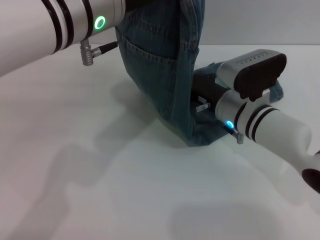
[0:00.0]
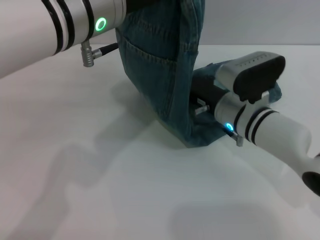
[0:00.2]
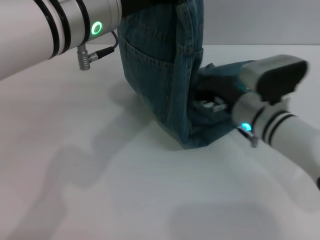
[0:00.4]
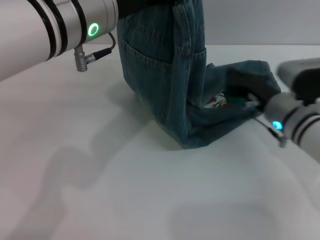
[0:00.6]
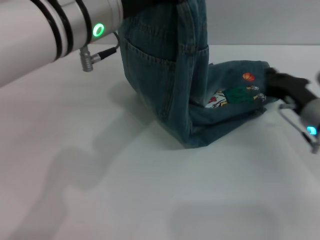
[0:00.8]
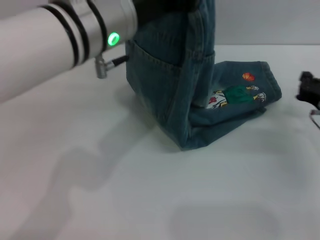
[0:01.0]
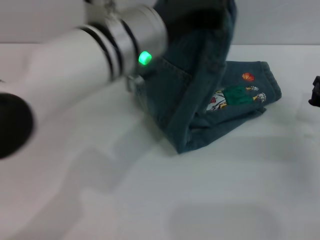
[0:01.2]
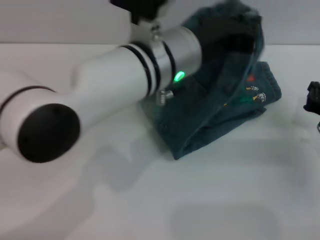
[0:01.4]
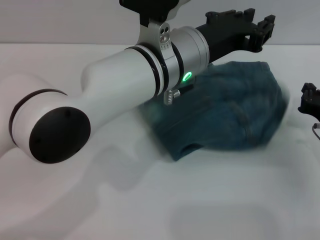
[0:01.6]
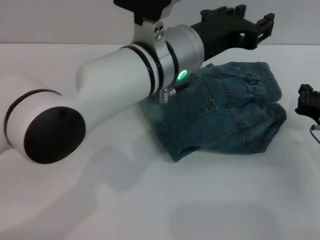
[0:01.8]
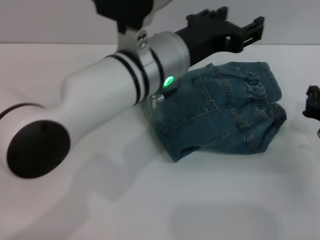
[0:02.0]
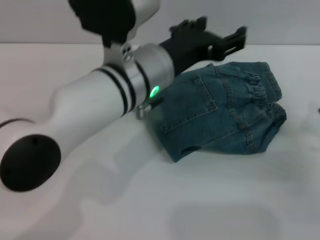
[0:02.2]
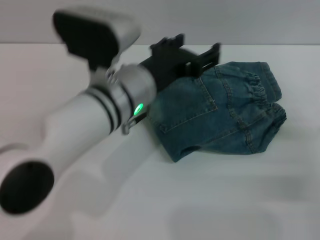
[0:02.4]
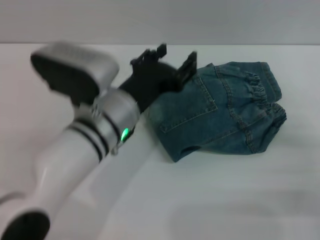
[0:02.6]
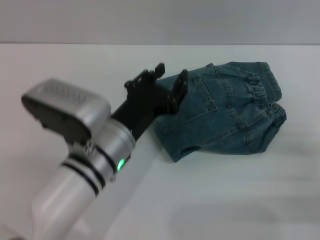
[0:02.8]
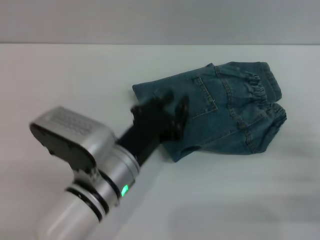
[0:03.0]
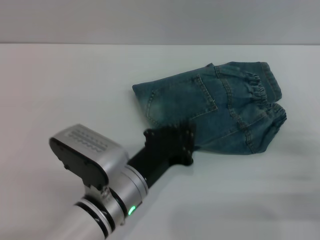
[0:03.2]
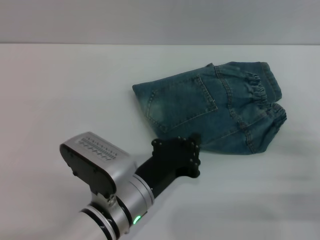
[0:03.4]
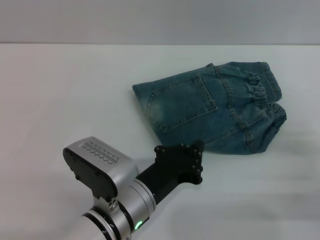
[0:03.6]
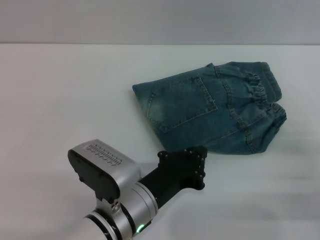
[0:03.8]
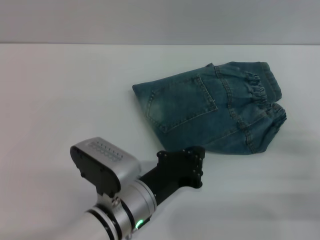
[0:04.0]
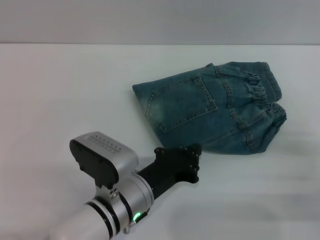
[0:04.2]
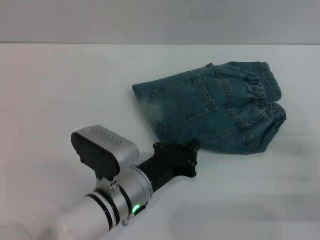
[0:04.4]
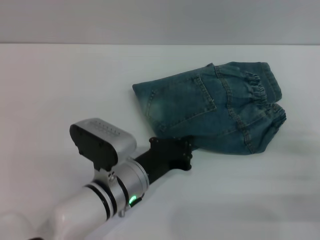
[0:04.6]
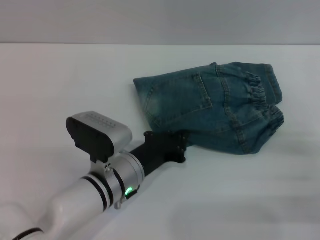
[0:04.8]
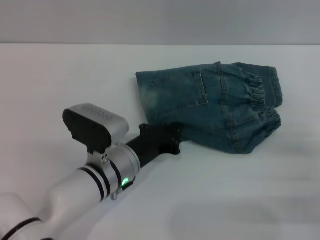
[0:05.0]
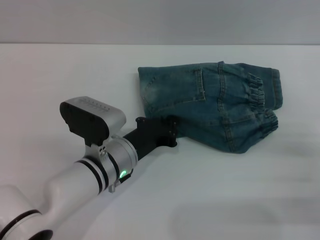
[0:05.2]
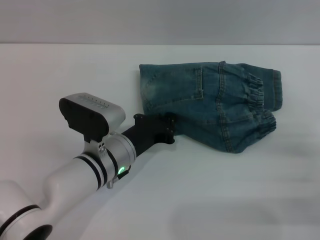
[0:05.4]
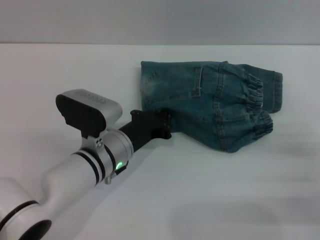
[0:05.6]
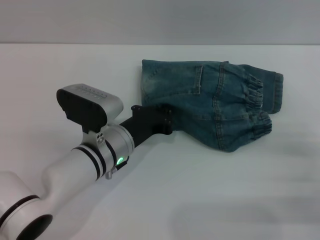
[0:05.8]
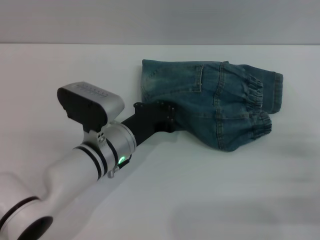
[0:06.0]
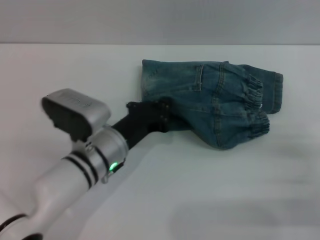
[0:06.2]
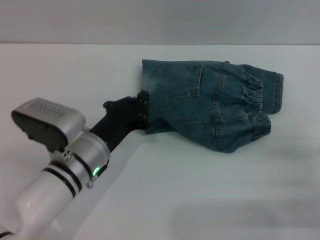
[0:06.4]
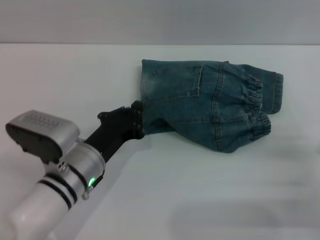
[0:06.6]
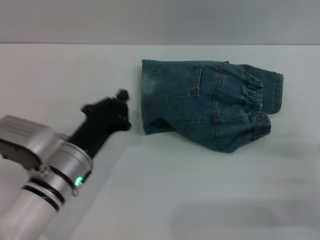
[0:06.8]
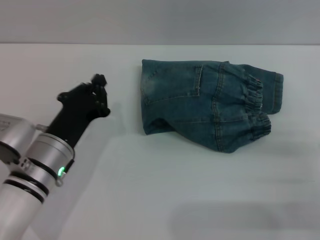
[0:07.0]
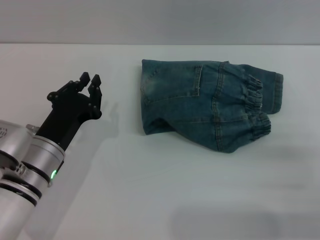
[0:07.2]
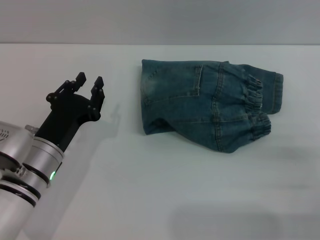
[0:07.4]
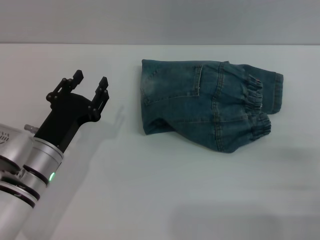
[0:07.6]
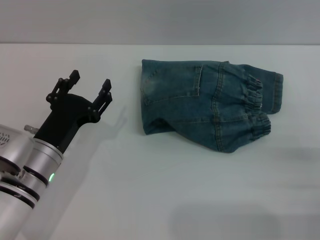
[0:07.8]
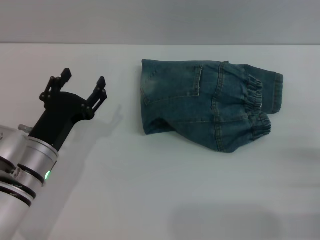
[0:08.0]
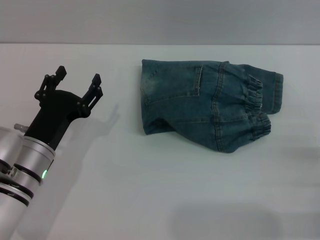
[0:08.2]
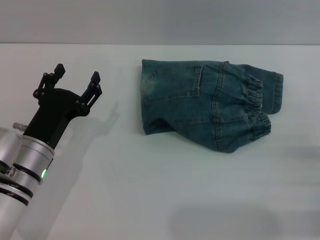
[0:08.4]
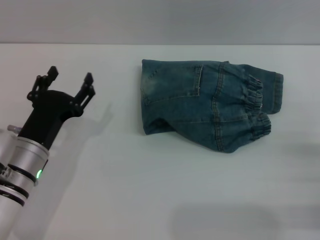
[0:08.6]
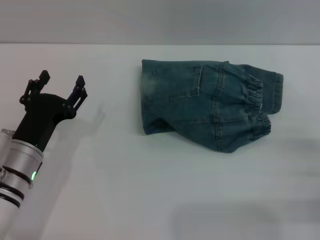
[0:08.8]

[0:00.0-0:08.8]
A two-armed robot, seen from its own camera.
Step, 2.0 to 6.6 s: Place the folded trousers onto the center area with the left grippers.
0.0 to 1.4 s: The right gripper travels to the right by about 15 cm, while the left gripper heads to the right and downward, covering about 10 cm.
1.4 to 3.0 s: The right gripper is displaced backward by roughly 10 cm; the left gripper is displaced downward, backward and to the left by approximately 15 cm, and opens, then closes again.
3.0 to 4.4 s: The left gripper travels downward by approximately 5 cm, and closes its fingers.
4.4 to 5.8 s: The left gripper heads forward, covering roughly 5 cm.
5.8 to 7.4 s: The left gripper goes some 10 cm to the left and backward.
7.4 to 8.8 s: The left gripper opens up.

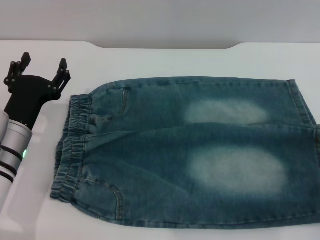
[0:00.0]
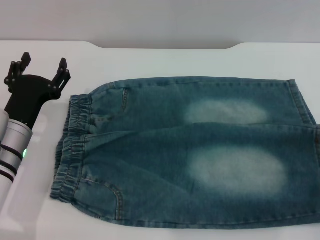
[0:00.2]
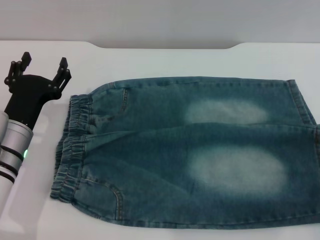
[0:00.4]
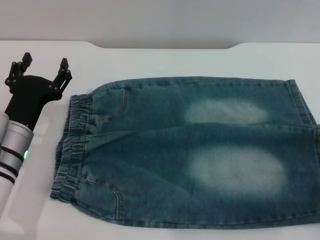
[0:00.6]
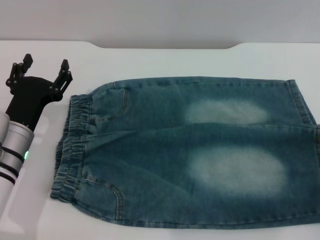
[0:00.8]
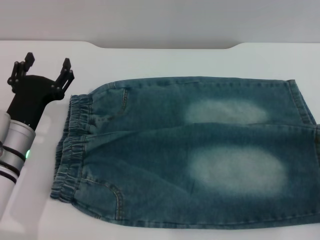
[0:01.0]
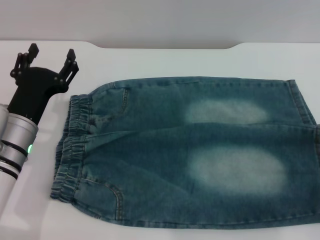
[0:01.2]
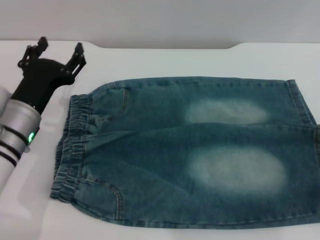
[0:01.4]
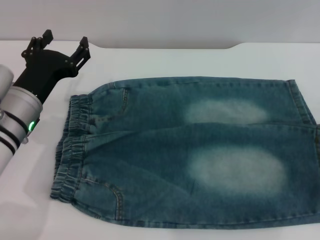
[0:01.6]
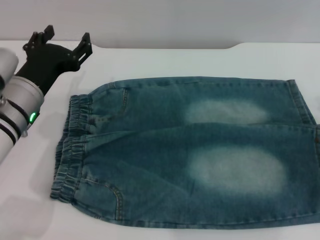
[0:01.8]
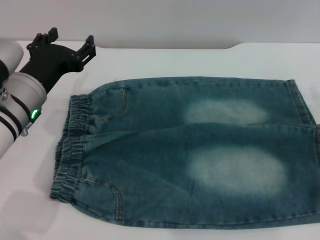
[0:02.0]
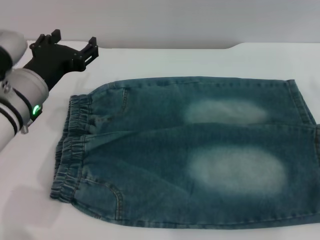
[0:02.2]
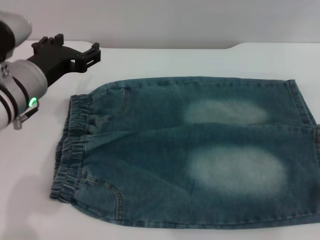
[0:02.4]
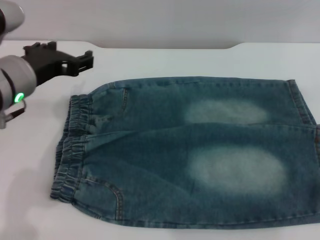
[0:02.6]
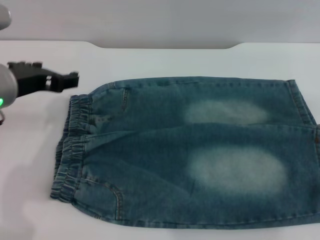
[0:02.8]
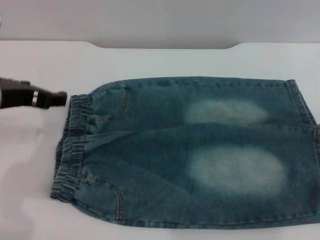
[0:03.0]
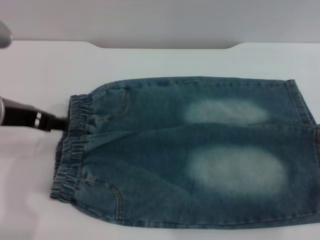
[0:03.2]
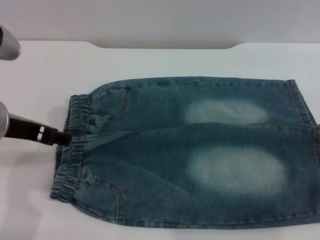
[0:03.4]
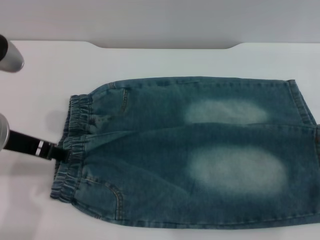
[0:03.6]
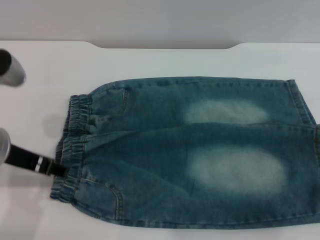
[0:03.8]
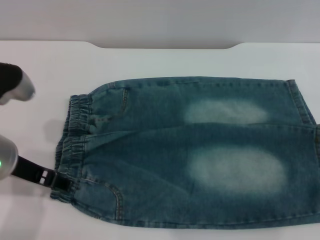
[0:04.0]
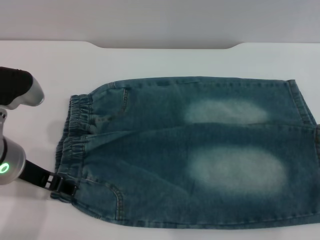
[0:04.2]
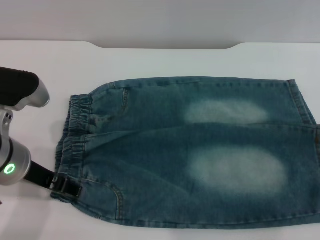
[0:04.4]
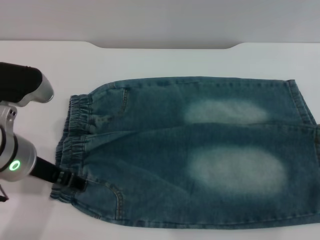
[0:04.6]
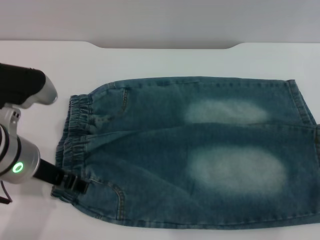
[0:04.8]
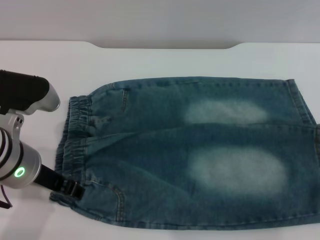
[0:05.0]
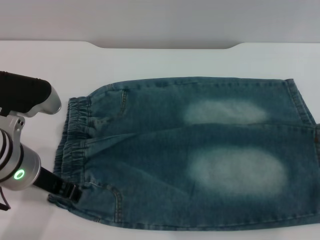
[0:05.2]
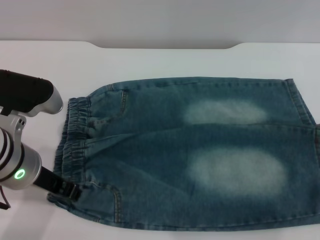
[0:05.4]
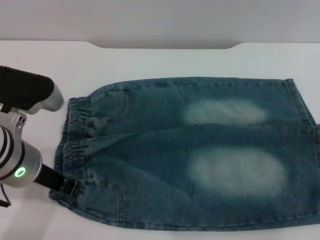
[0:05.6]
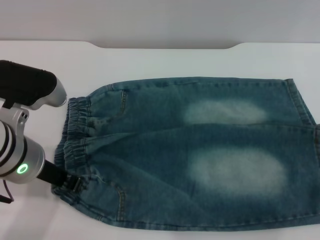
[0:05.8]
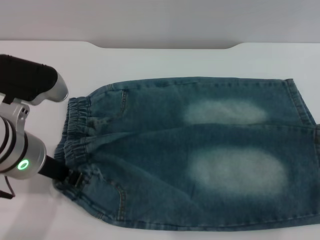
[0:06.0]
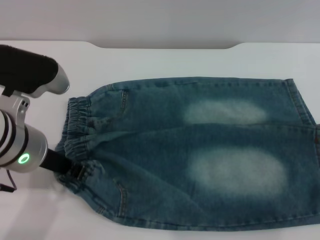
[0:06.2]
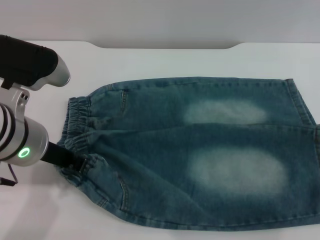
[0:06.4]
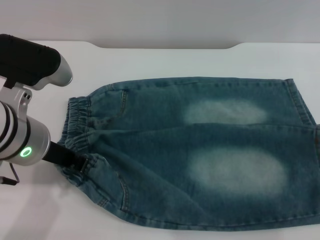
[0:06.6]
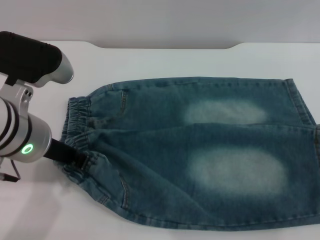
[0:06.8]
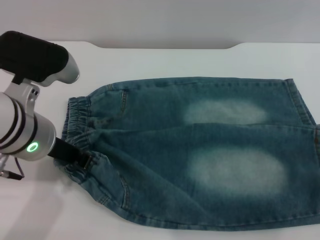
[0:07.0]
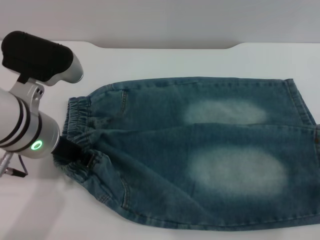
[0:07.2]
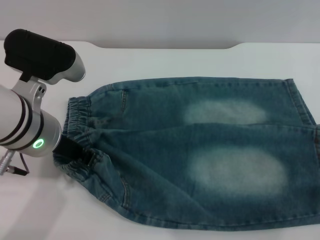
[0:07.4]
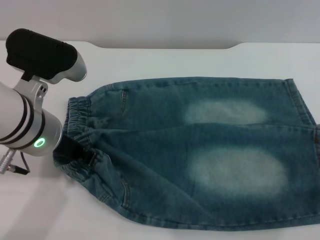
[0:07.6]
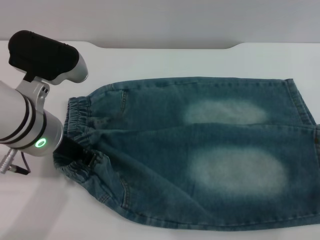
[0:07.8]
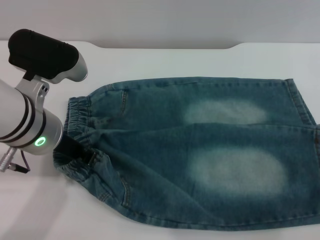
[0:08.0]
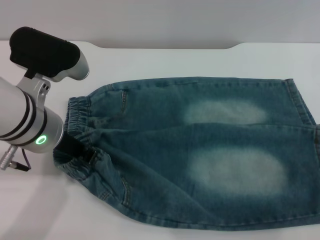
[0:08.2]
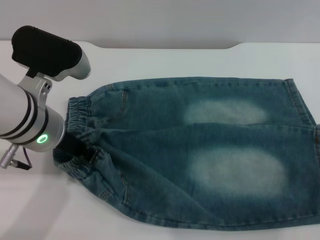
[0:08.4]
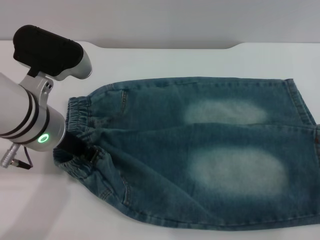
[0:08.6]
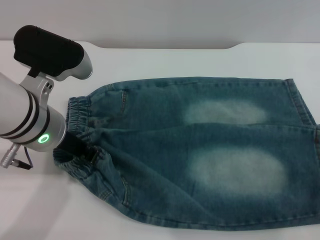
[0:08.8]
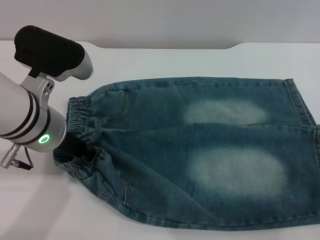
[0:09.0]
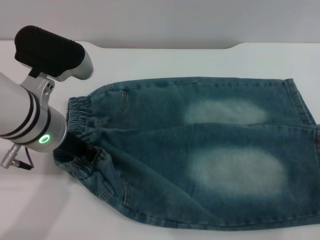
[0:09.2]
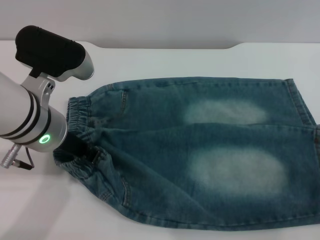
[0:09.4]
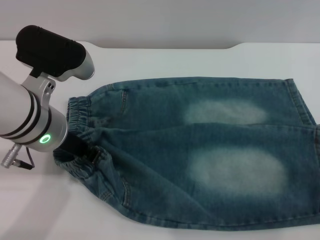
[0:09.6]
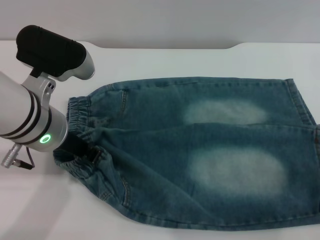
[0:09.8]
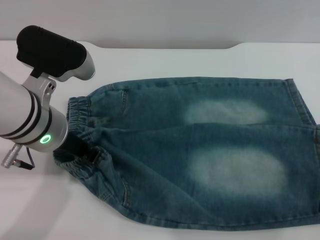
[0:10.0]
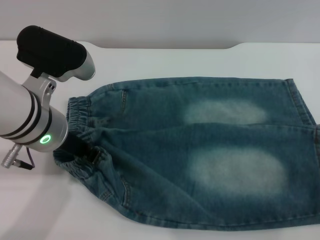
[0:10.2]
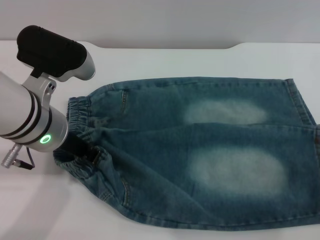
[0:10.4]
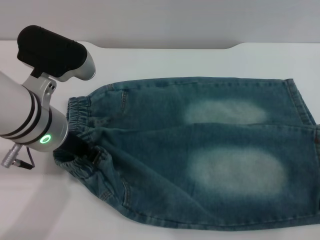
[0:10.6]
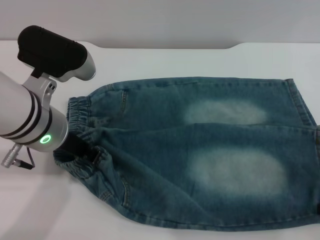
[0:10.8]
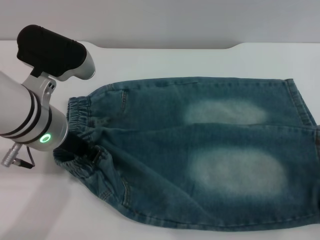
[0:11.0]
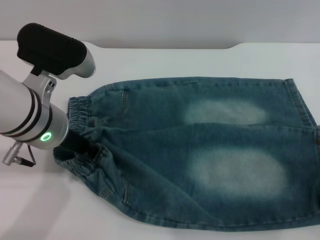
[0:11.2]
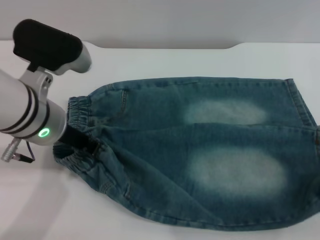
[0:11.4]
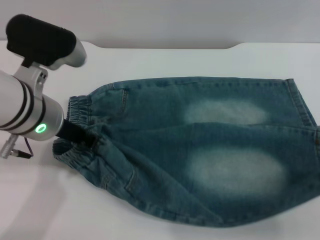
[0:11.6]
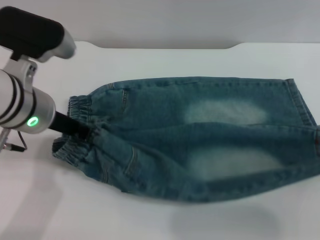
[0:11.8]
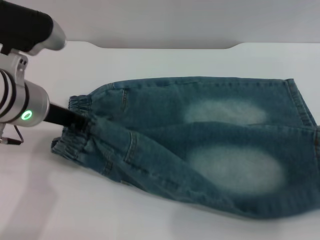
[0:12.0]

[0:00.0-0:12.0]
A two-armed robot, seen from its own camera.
0.0 to 1.6 s: The left gripper moves upward, roughly 5 cm.
1.6 to 3.0 s: The left gripper is displaced upward by approximately 10 cm.
3.0 to 4.4 s: The left gripper ends up roughly 5 cm from where it was.
4.4 to 6.0 s: The left gripper closes up.
6.0 to 7.6 s: The right gripper is displaced downward by approximately 5 cm.
7.6 to 9.0 s: The grippers stay close to where they were, moving slightly.
9.0 to 10.4 s: Neither gripper changes place.
10.4 to 12.0 s: The right gripper is displaced upward by roughly 5 cm, and closes.

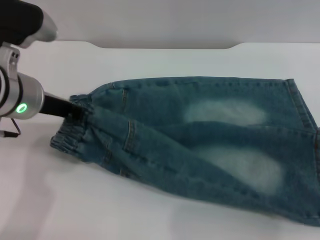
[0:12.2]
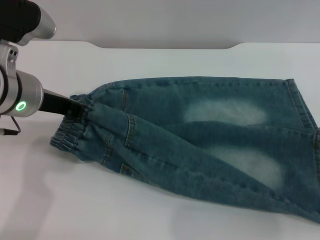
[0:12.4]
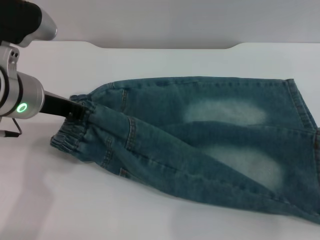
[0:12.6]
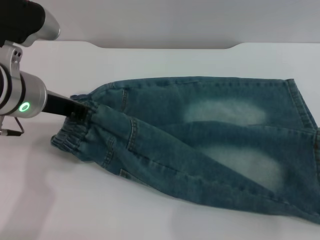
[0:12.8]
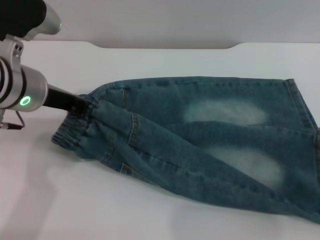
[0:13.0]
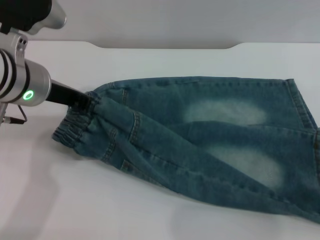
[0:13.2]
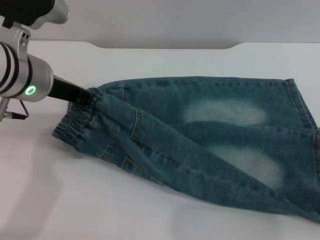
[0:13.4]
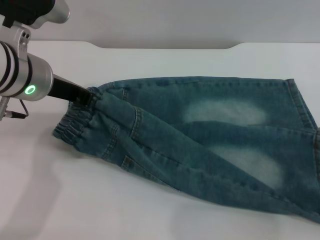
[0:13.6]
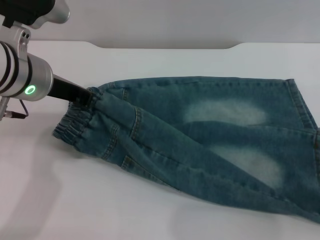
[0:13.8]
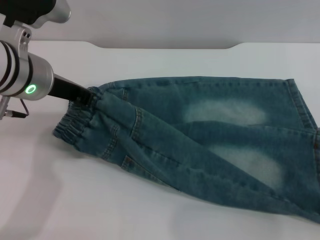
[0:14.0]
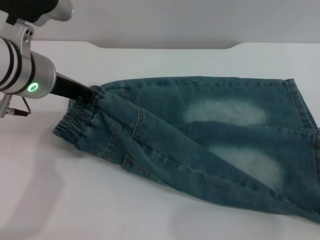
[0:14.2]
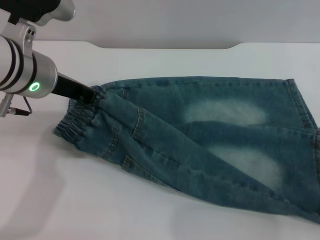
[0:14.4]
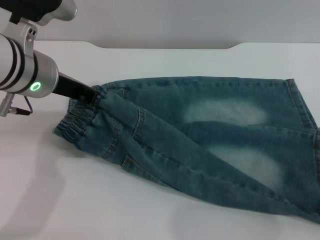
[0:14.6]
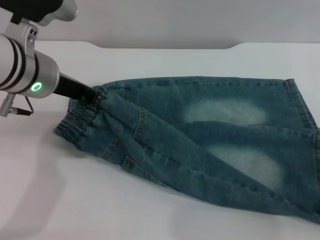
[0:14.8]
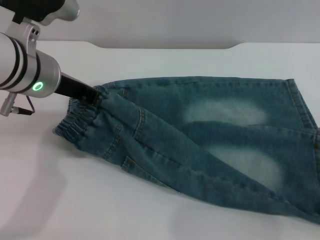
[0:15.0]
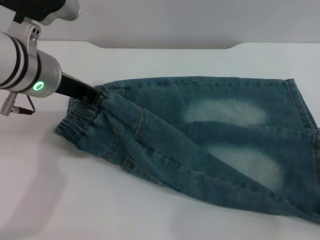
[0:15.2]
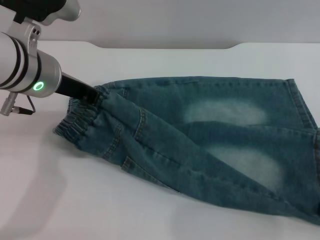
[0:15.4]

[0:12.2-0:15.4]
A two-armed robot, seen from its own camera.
12.2 to 13.8 s: The right gripper changes place by roughly 5 cm, and opens up.
13.8 to 15.4 s: The grippers move only a little.
